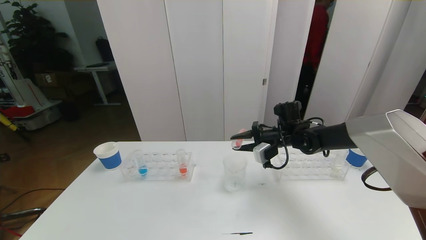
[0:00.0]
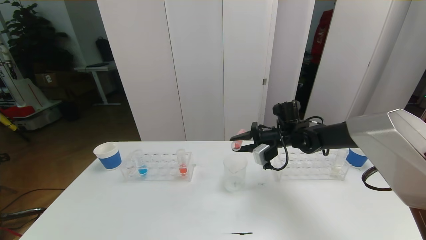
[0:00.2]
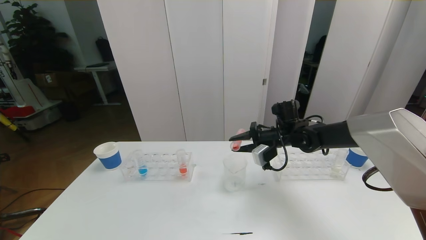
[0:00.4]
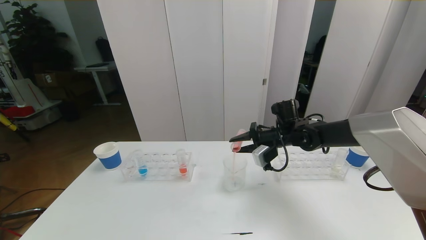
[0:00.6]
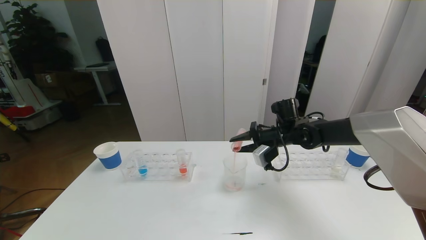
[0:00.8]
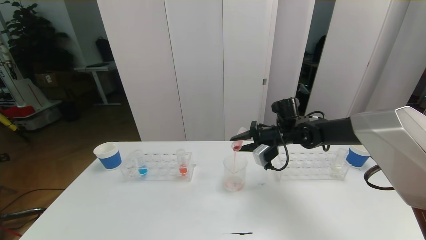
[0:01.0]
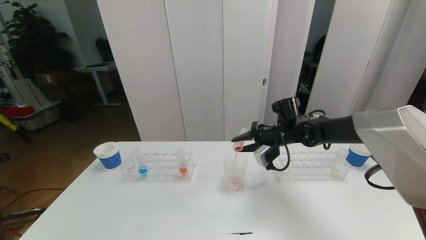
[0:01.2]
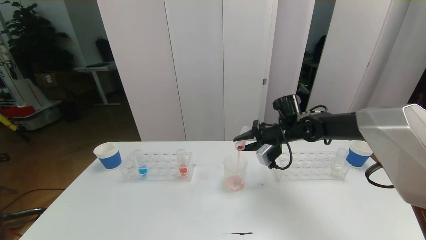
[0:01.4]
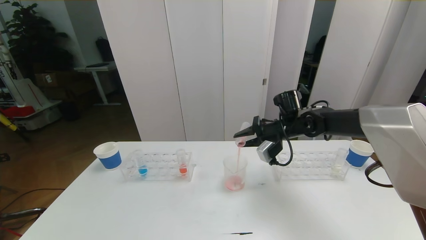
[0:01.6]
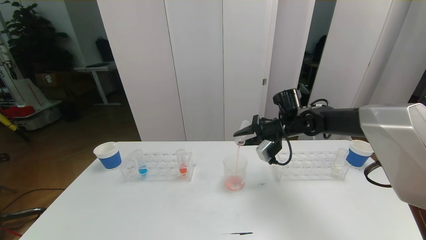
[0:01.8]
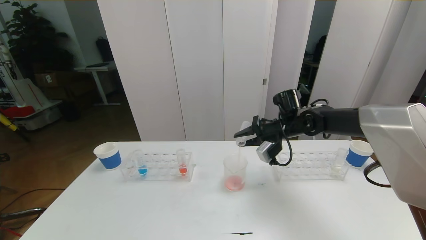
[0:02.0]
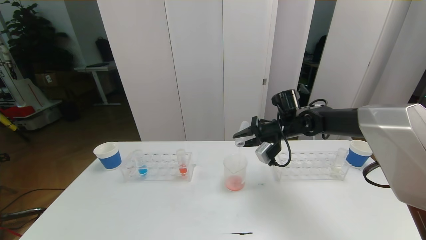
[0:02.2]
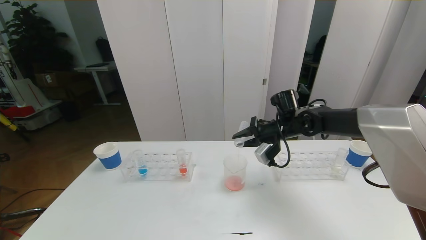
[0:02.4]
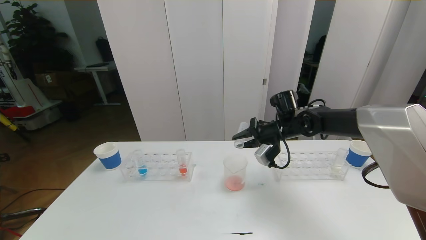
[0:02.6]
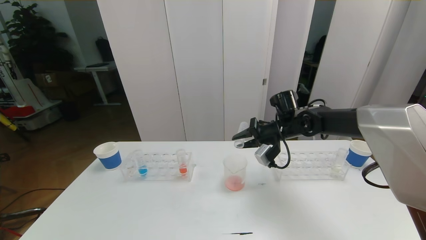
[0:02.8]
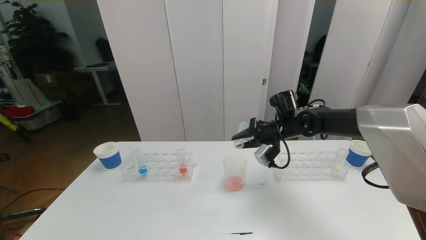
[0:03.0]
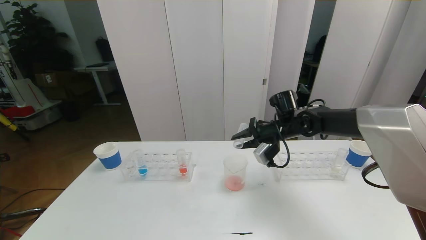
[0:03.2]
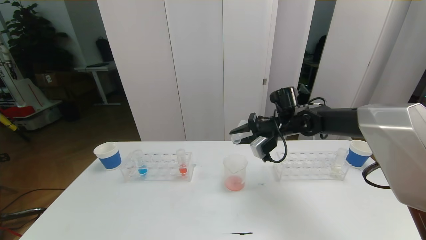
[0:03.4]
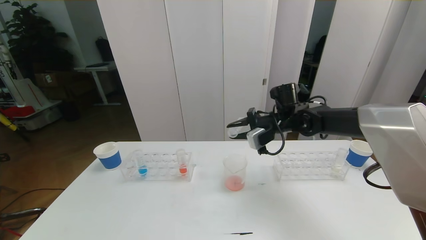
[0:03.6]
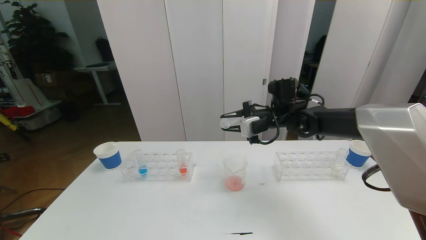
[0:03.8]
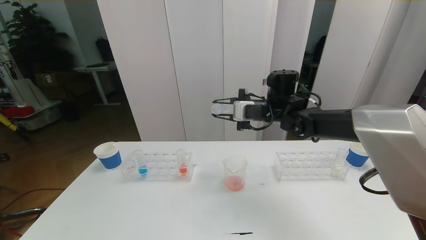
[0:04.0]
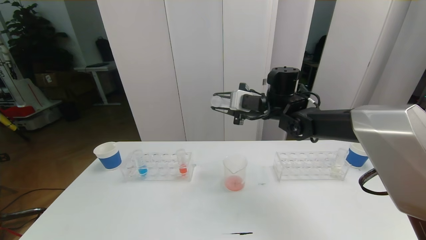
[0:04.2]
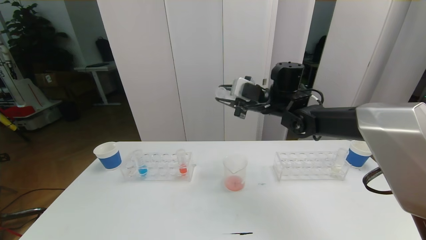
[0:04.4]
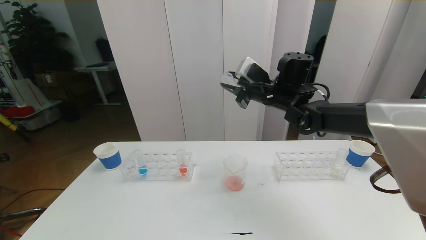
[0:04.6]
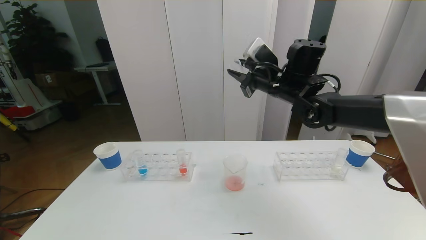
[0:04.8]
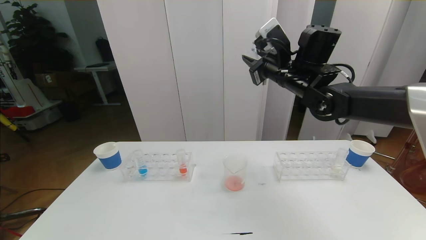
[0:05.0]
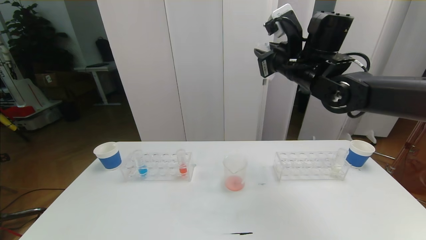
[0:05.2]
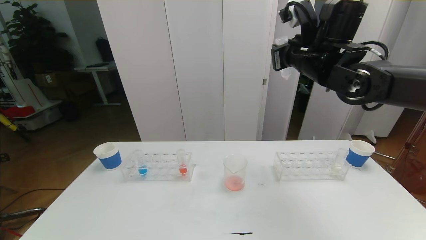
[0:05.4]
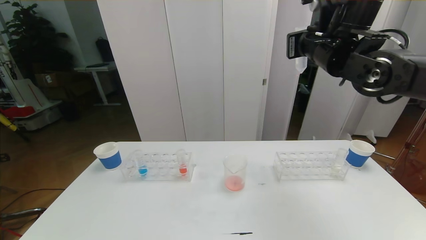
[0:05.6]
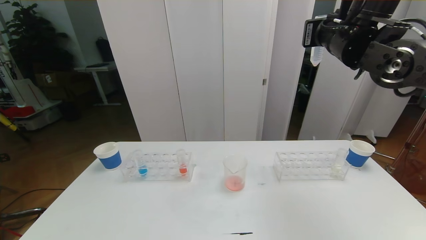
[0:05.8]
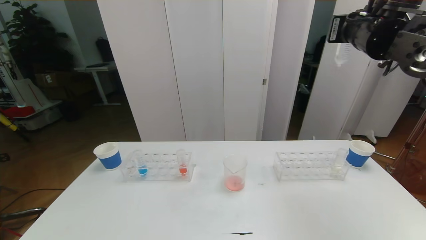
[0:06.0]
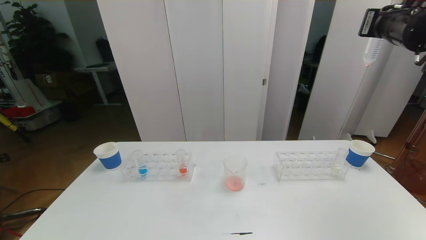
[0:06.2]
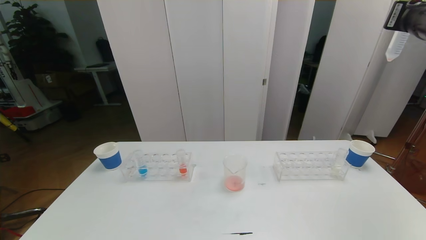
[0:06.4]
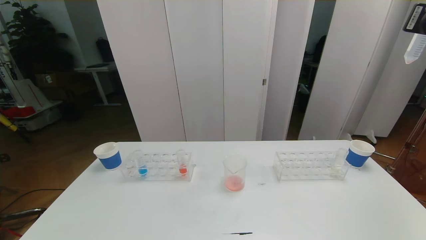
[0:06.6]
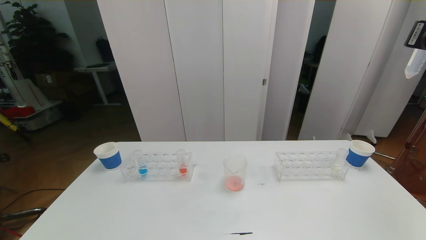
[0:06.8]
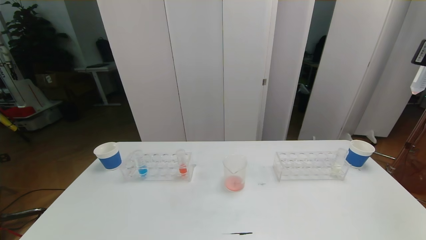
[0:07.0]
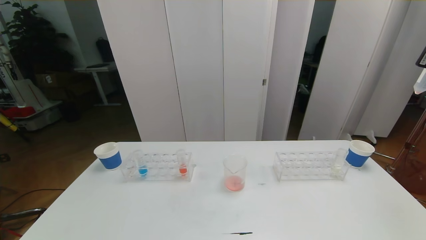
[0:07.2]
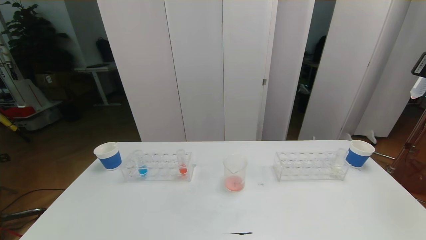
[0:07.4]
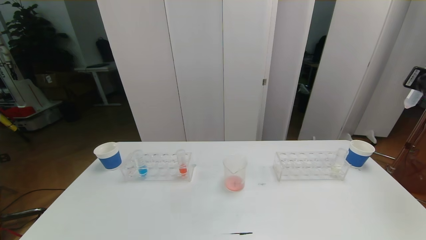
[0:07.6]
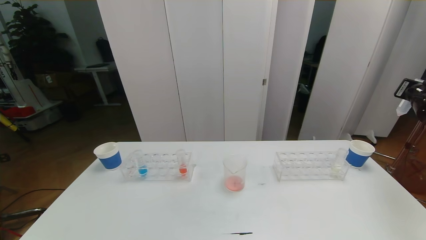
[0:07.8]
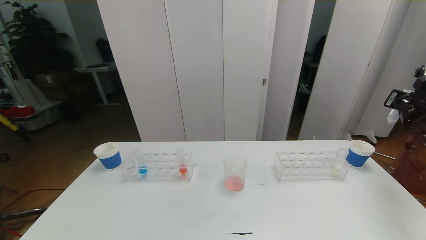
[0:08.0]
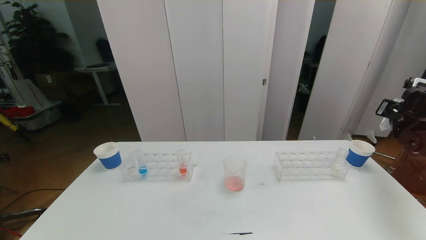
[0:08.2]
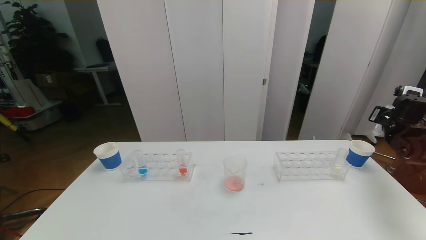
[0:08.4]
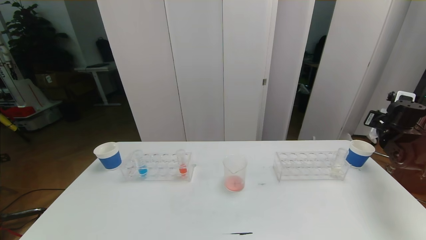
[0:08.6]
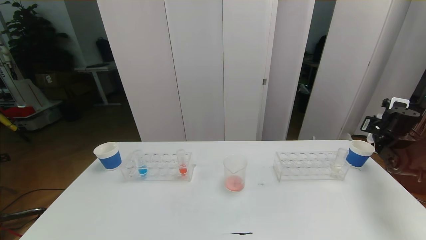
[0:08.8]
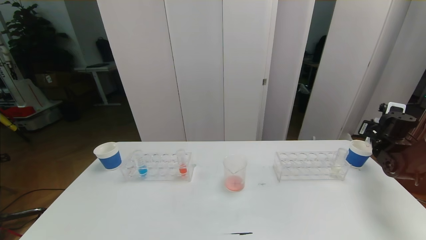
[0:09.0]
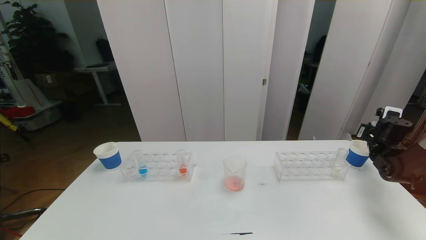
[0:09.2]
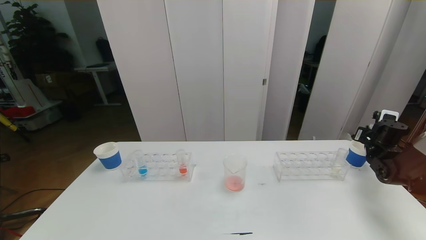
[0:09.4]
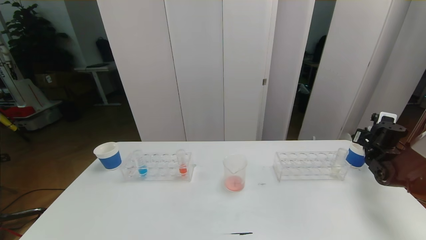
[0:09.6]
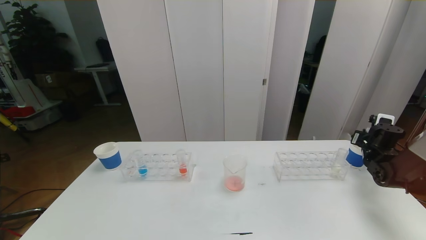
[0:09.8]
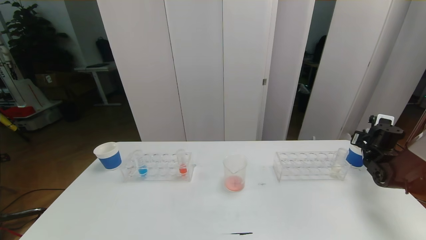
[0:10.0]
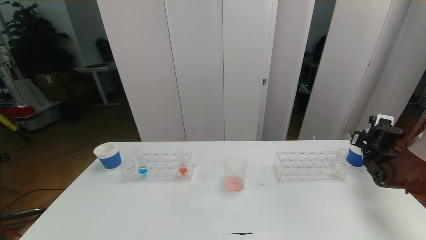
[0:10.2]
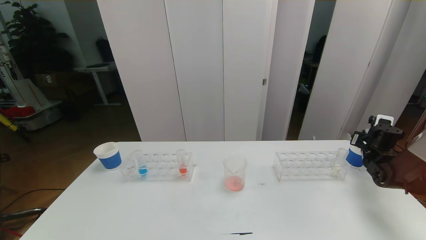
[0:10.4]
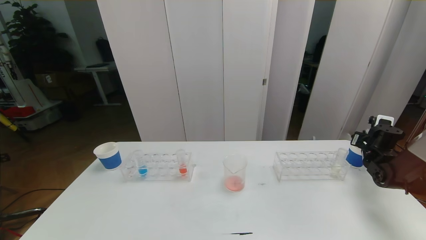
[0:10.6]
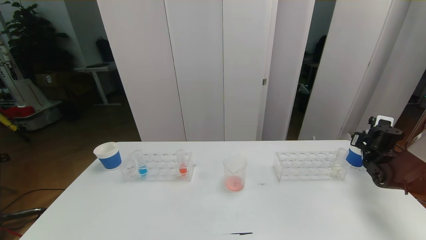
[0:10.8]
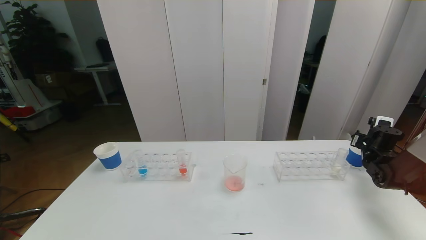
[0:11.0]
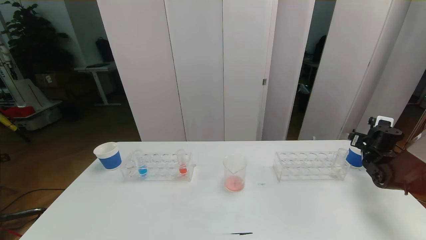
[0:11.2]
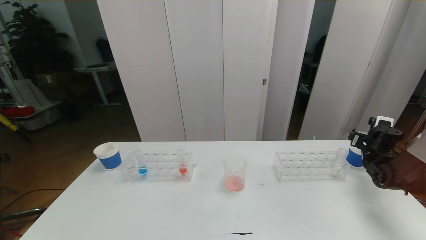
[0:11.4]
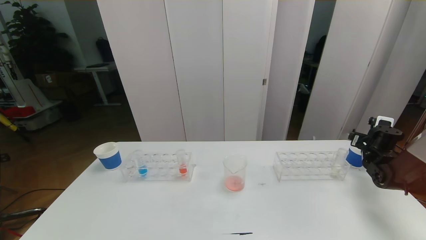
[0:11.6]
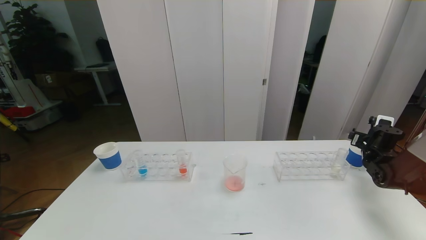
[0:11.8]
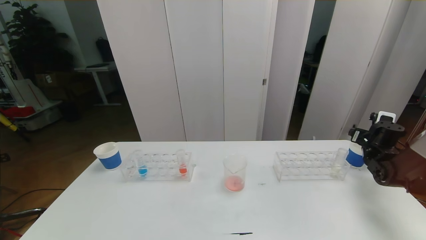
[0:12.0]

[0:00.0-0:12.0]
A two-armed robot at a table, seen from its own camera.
Task of the whole recording: pick up the test tube with red pigment the test tube with blue pigment and the test tube with white pigment by grippers and pour them into the beaker.
0:00.0 to 0:03.0: There are only small adjustments of the grippers.
0:03.0 to 0:04.4: The right gripper moves upward, roughly 10 cm.
0:04.4 to 0:06.0: The right gripper moves upward, to the right and backward, approximately 20 cm.
0:06.0 to 0:07.6: The right gripper heads to the right and downward, covering approximately 20 cm.
0:07.6 to 0:09.0: The right gripper heads downward, covering about 15 cm.
0:09.0 to 0:10.4: There are only small adjustments of the grippers.
0:10.4 to 0:12.0: The right gripper opens its fingers.

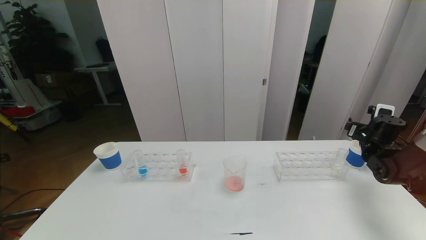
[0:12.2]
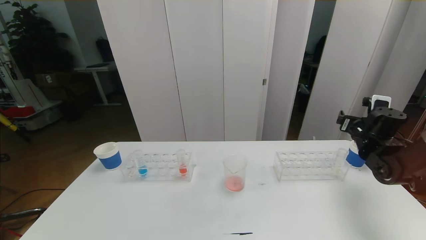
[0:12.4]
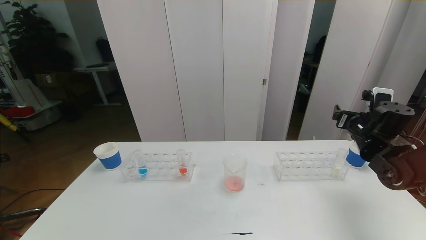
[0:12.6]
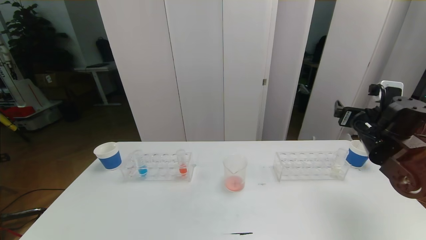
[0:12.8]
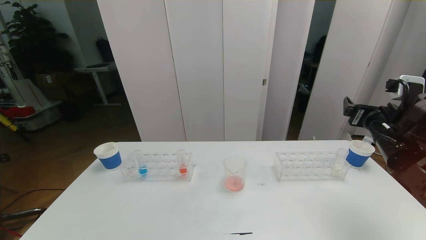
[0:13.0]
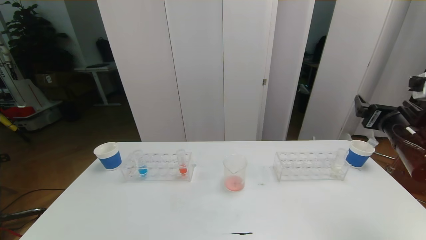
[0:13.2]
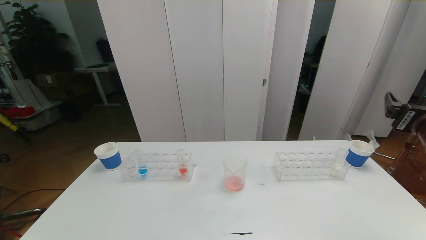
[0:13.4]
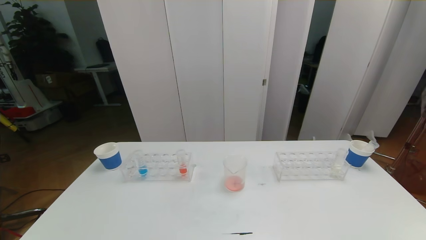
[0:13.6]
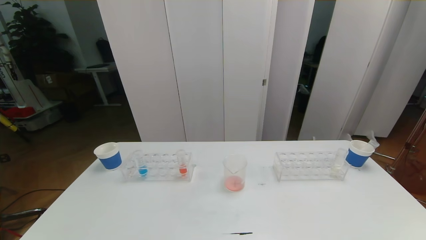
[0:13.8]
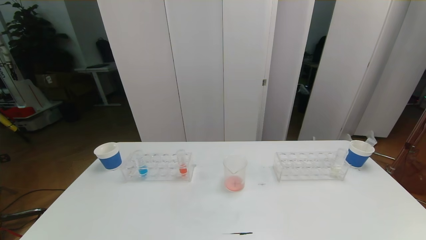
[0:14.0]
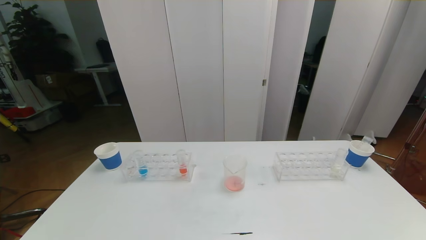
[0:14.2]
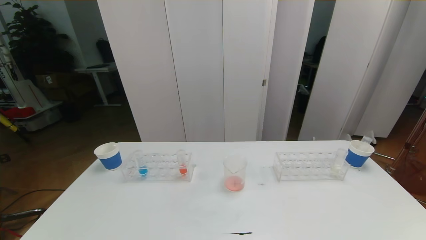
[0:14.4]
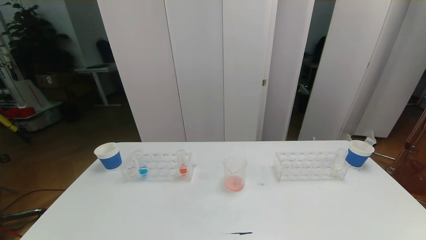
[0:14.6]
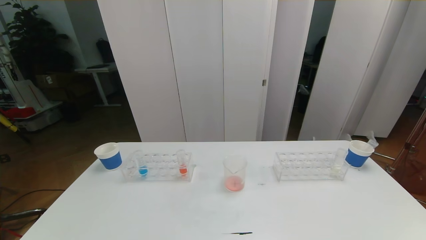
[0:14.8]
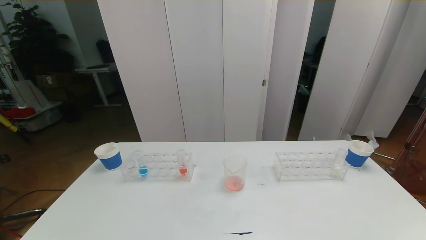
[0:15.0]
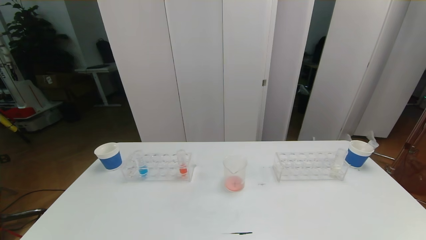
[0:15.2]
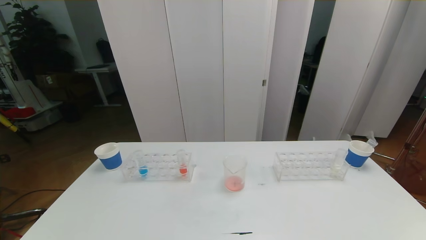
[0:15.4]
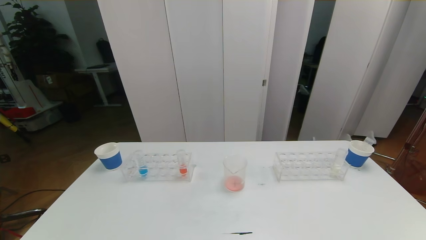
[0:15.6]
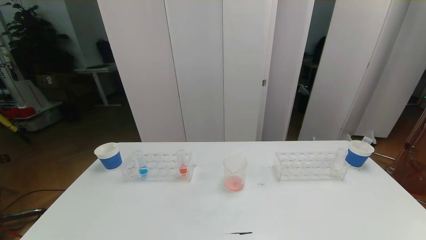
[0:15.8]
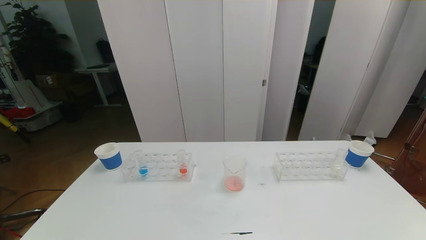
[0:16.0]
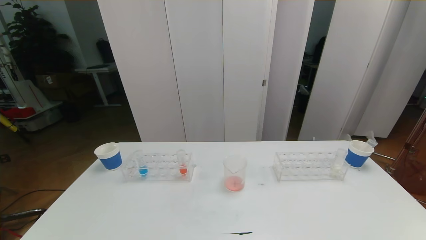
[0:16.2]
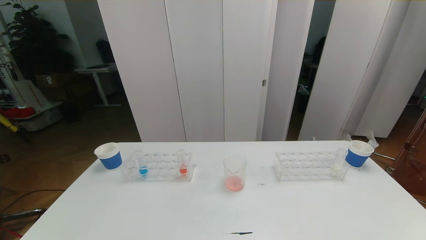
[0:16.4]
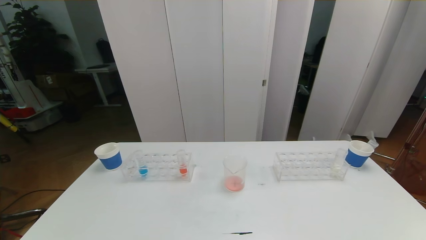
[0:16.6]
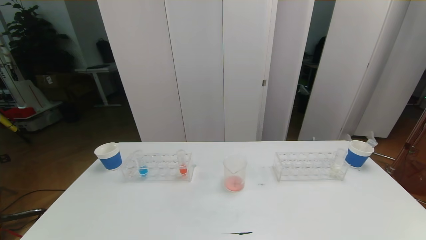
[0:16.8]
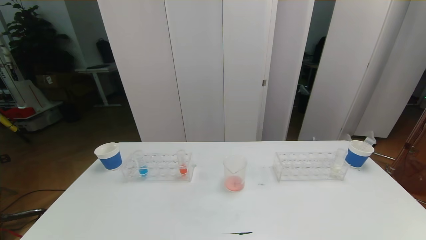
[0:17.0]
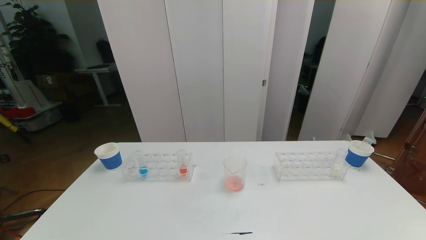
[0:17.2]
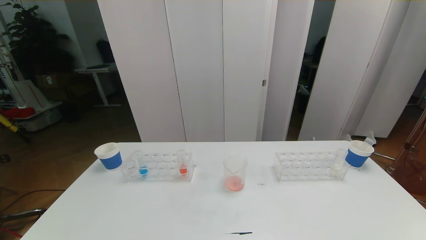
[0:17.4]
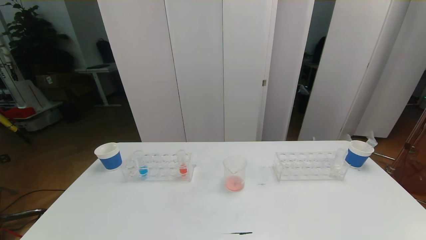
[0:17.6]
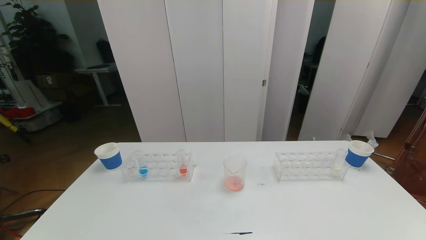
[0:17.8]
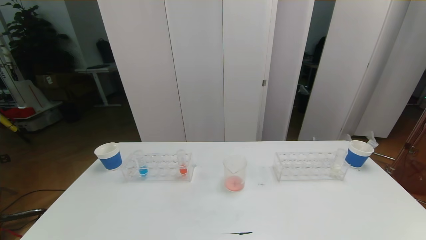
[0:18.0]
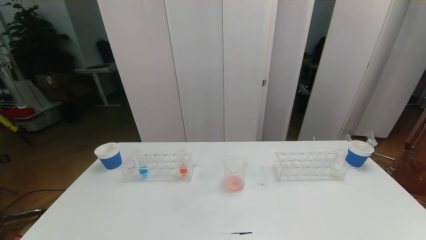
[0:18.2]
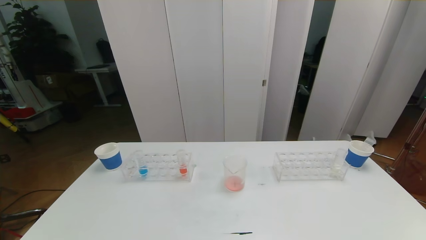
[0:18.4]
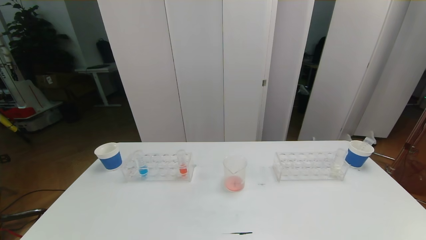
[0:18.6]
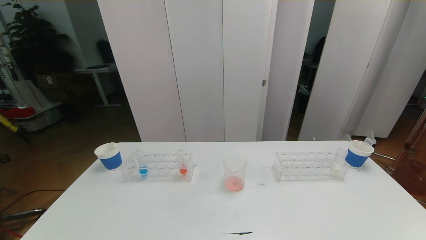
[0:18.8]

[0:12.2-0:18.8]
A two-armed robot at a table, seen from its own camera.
Task of the whole recording: pick up the test tube with red pigment the test tube with blue pigment and the test tube with white pigment by grippers and pour them into the beaker.
Step, 0:12.2 to 0:16.4: Pour the red reagent into the graduated cylinder and place the test tube into the paper cup.
0:12.2 to 0:13.8: The right gripper shifts about 30 cm backward and upward.
